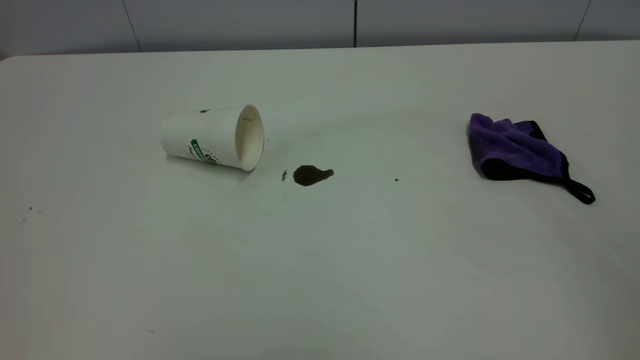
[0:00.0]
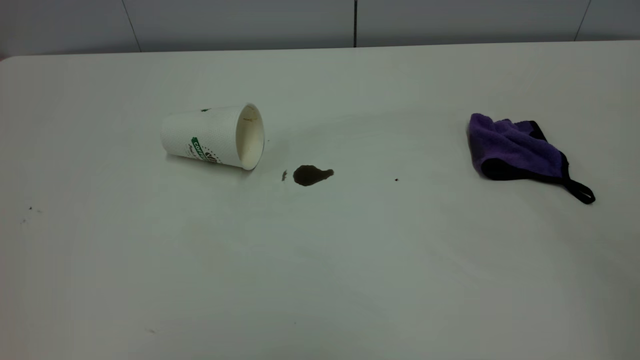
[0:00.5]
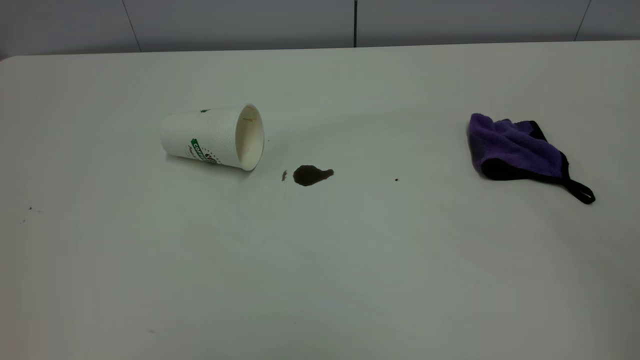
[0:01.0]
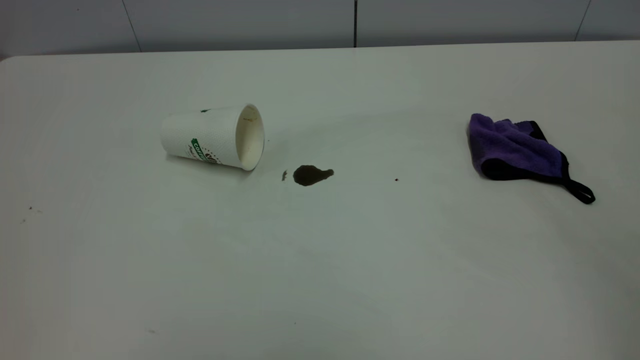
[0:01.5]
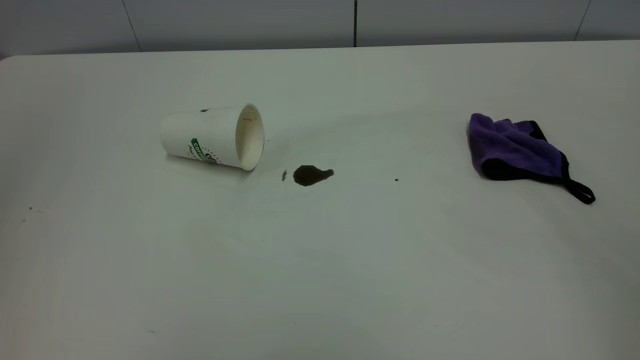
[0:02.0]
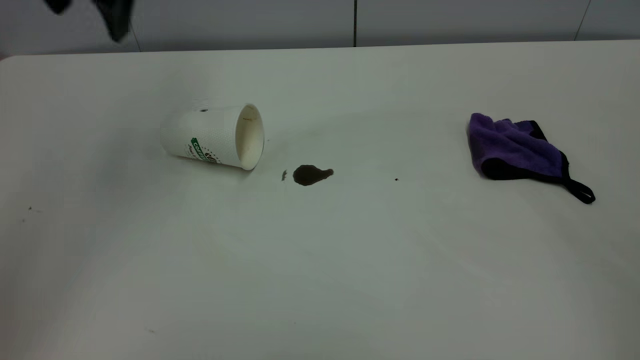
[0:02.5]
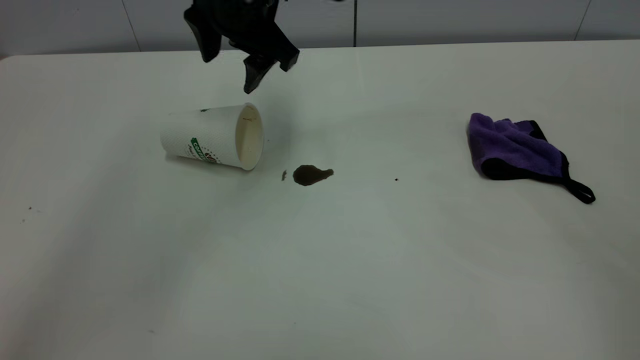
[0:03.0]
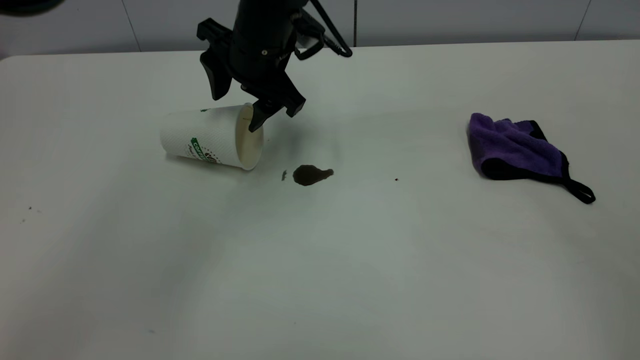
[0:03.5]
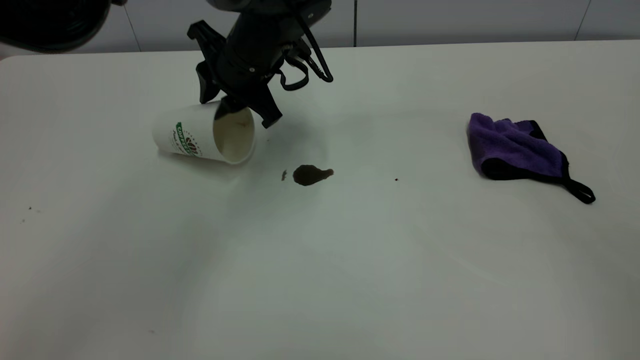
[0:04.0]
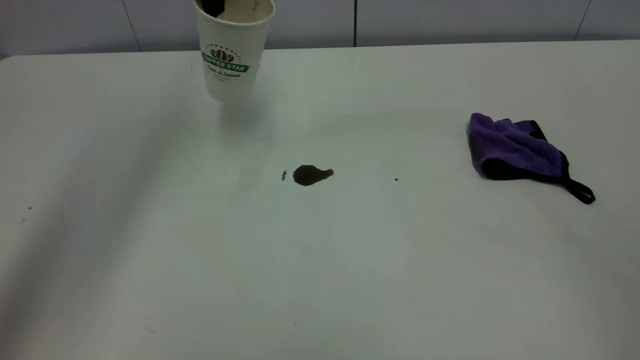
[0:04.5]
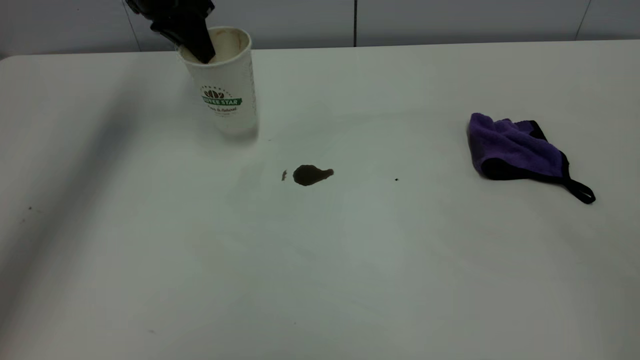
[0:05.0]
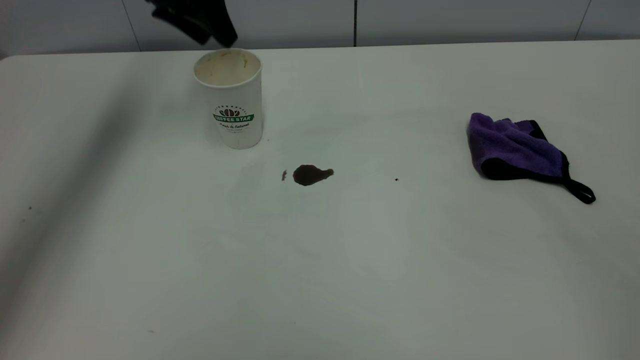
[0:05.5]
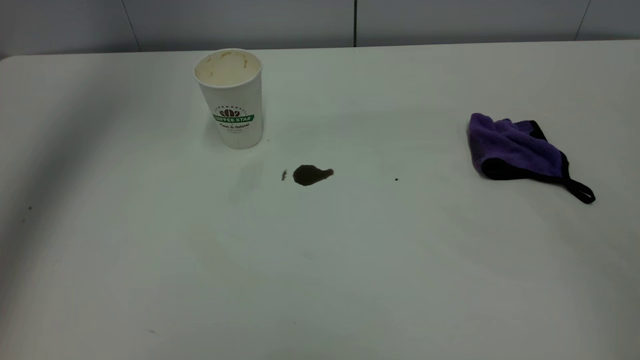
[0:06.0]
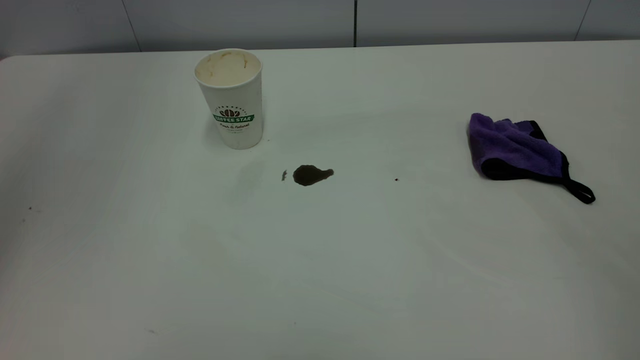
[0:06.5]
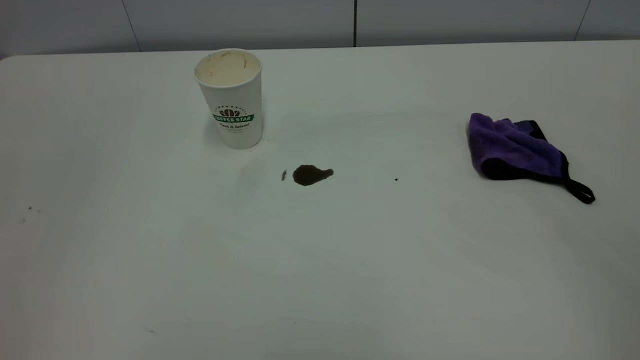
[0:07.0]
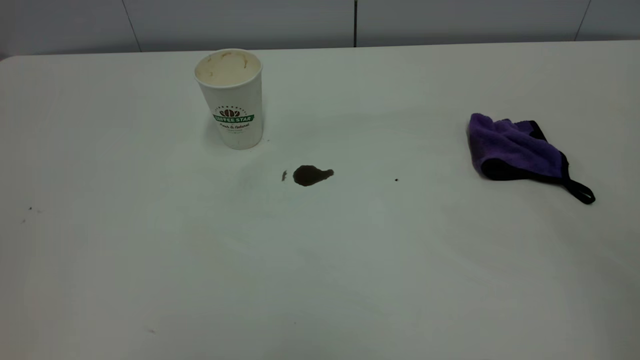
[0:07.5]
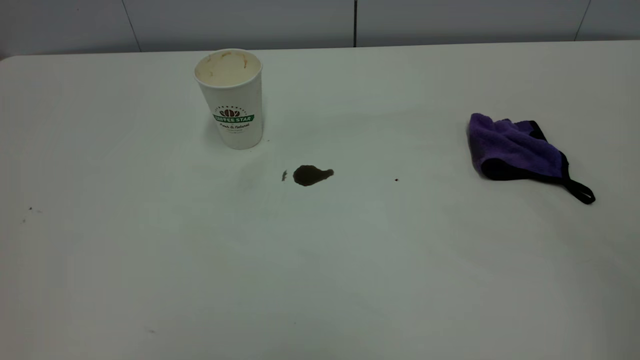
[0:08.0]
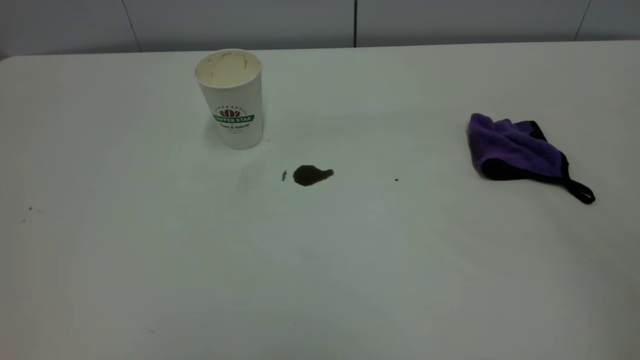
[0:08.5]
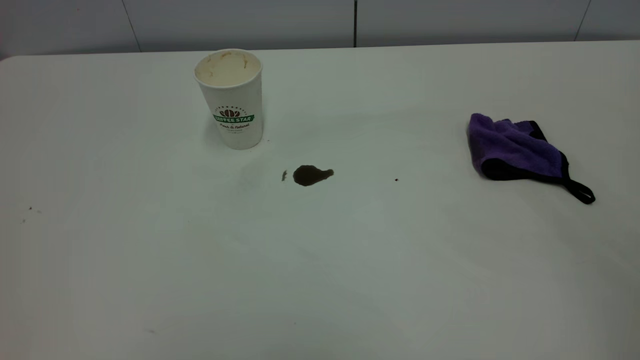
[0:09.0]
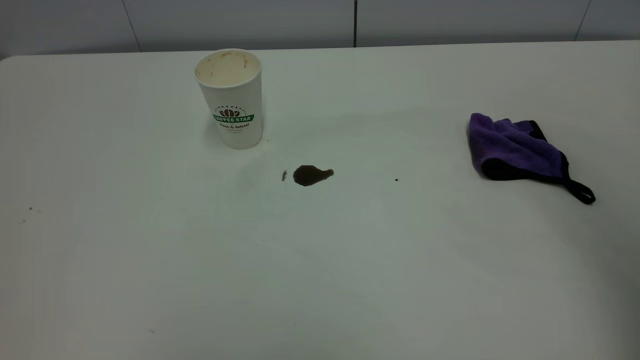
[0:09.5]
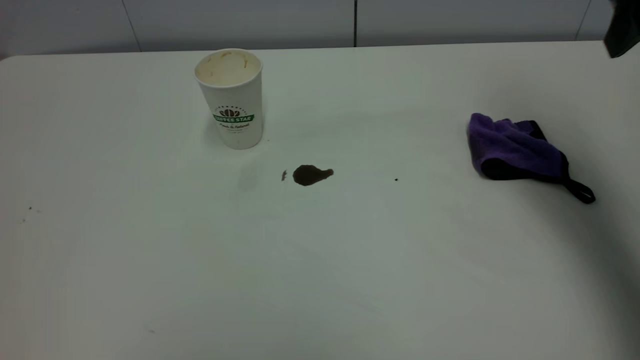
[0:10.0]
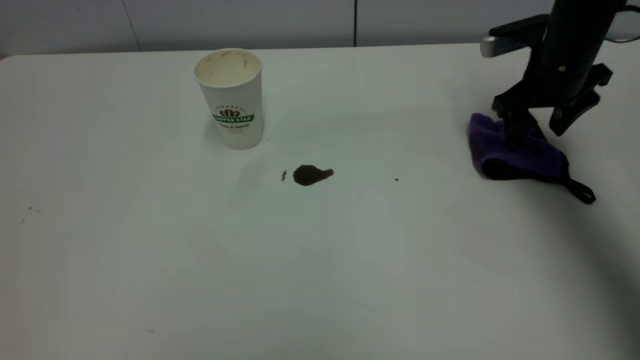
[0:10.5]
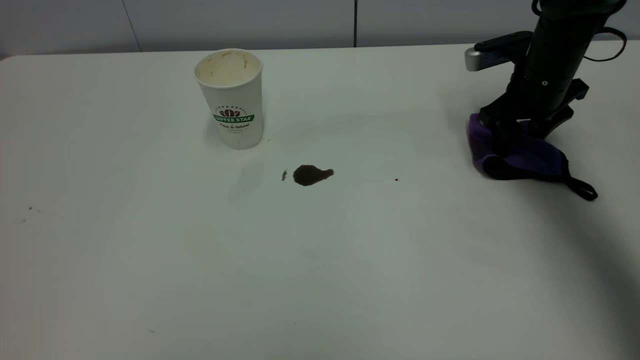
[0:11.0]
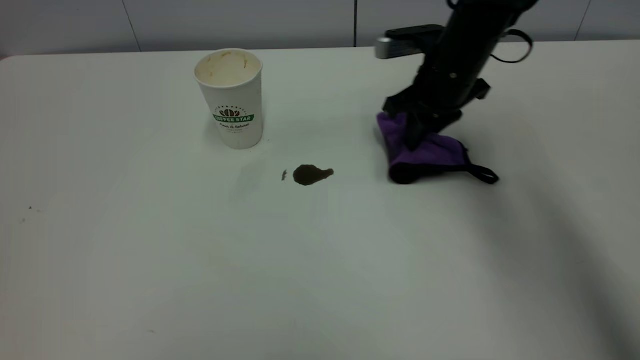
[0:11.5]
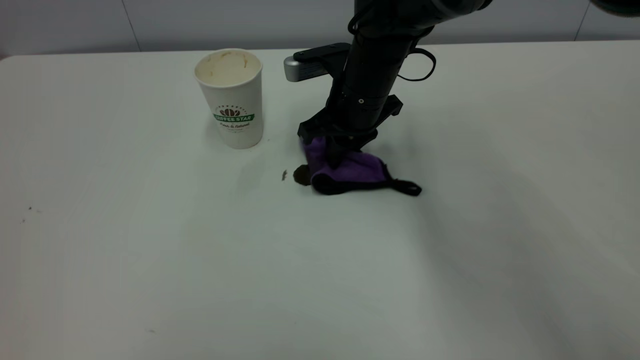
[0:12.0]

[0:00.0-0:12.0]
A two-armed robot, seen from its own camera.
Task of the whole recording: the left gripper pick up the fallen cup and place it upright, the right gripper grasp the purple rag and wipe the coffee stain on the table, the right gripper put the purple rag back in its original position.
Step, 0:00.0 to 0:05.0: Stand the paper cup upright.
0:02.0 to 0:04.0: The left gripper heads downward, forward and to the right, covering about 50 cm, and closes its fingers.
0:04.0 to 0:06.0: The left gripper swings up and down, about 30 cm each way, with 2 reversals, and opens.
0:06.0 to 0:08.0: The left gripper goes approximately 50 cm backward, and closes its fingers.
0:08.0 to 0:10.0: The right gripper travels forward by some 35 cm.
0:10.0 to 0:12.0: The right gripper heads to the left and downward, covering roughly 30 cm, and closes its fingers.

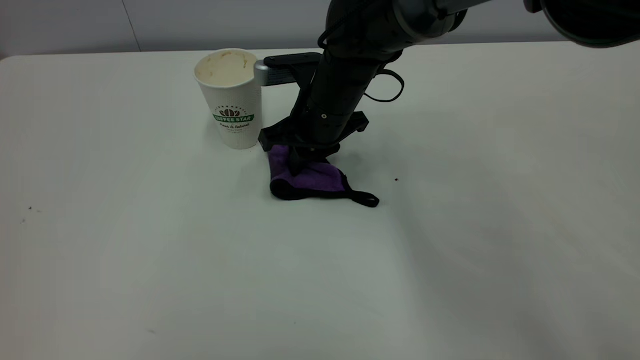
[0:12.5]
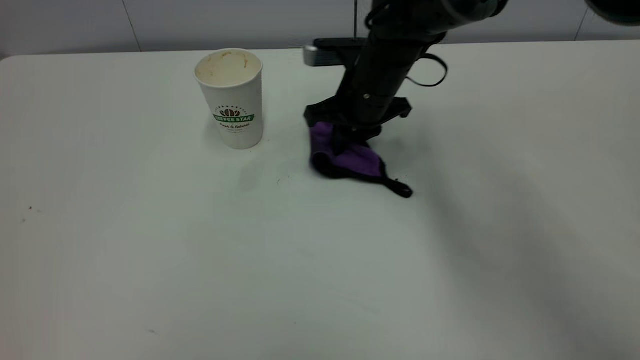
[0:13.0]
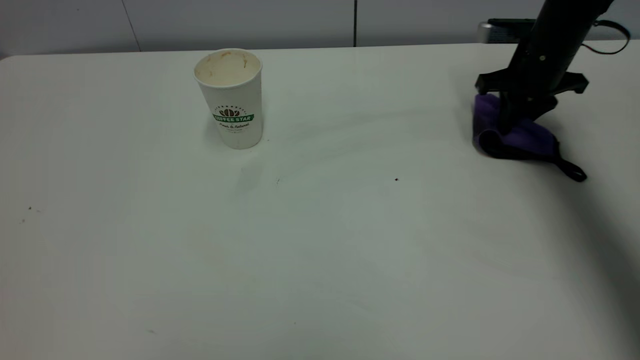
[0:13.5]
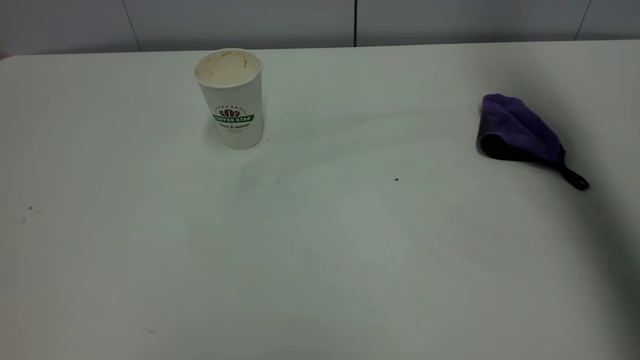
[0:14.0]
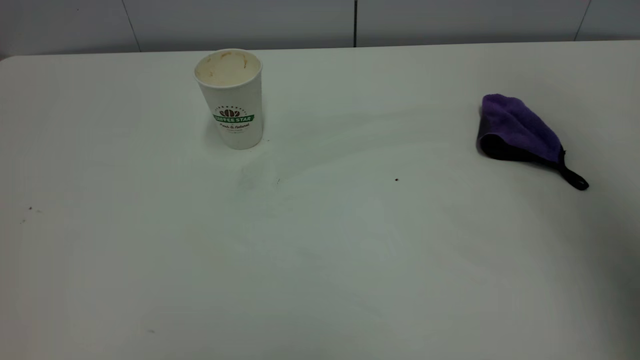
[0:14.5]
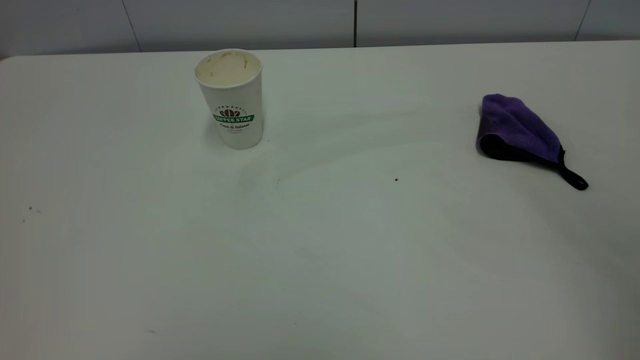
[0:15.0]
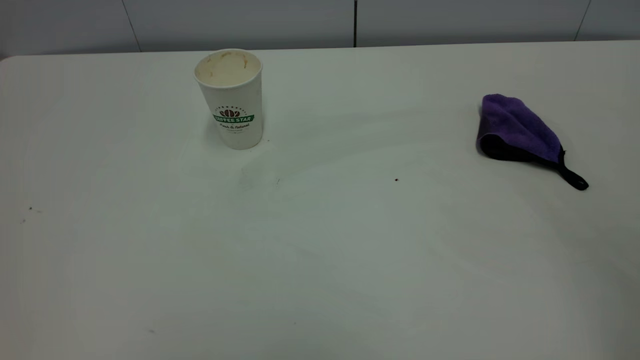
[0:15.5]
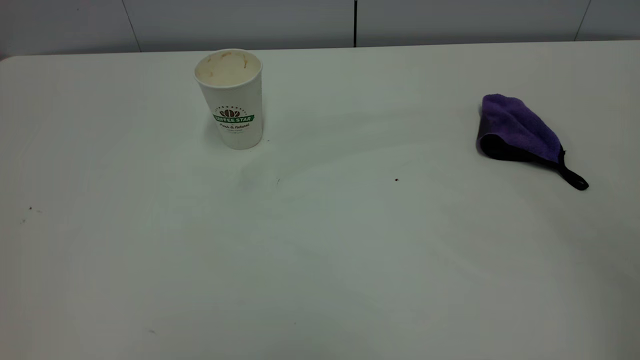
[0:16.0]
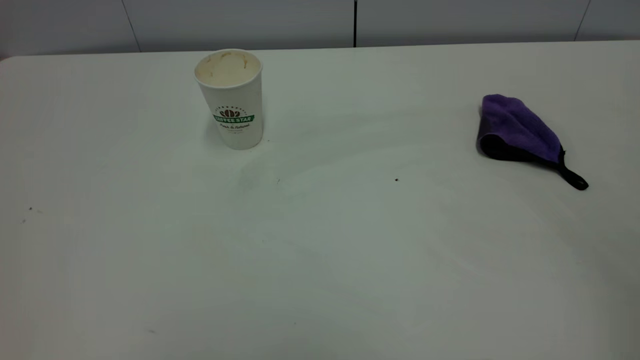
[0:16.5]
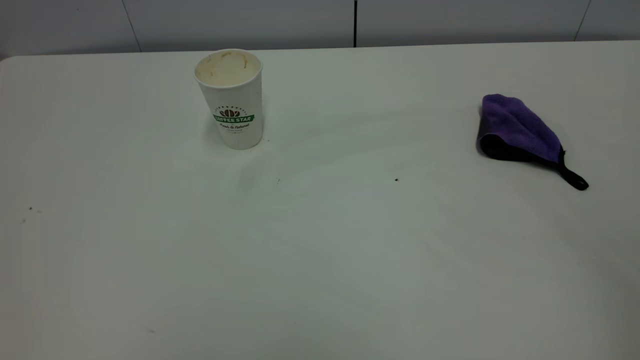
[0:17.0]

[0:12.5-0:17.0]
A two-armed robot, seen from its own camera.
Task of the whole recording: the left gripper pick up the fallen cup and place it upright, the right gripper grasp the purple rag and wipe the coffee stain on the table, the right gripper put the purple rag back in its original position.
0:12.5 to 0:14.5: The right gripper is displaced upward, to the right and backward by about 50 cm, and opens.
0:14.5 to 0:17.0: The right gripper shifts roughly 25 cm backward and downward, and closes.
